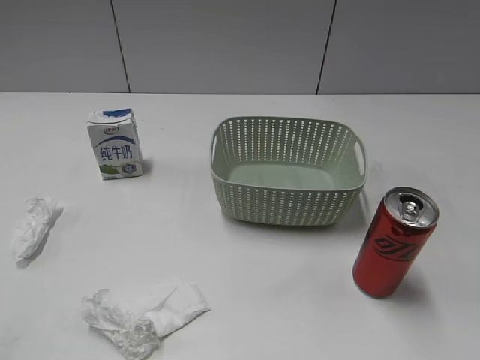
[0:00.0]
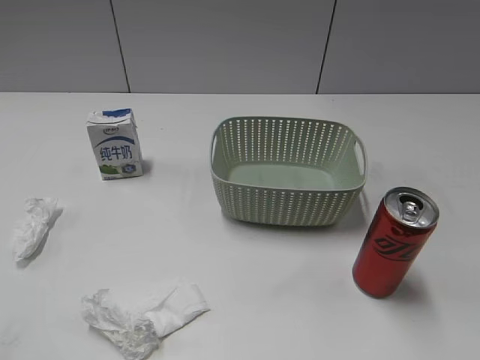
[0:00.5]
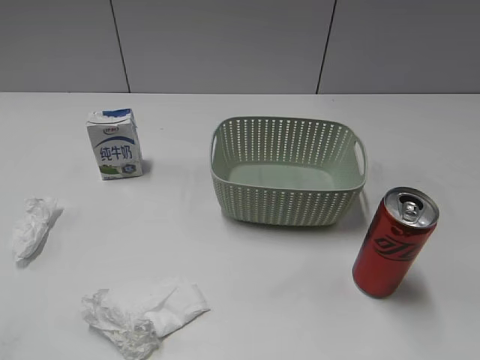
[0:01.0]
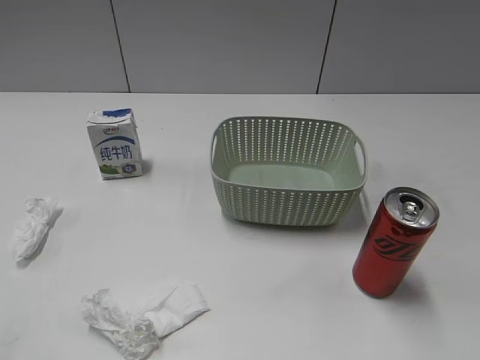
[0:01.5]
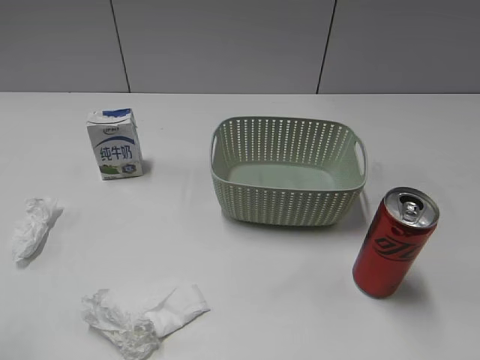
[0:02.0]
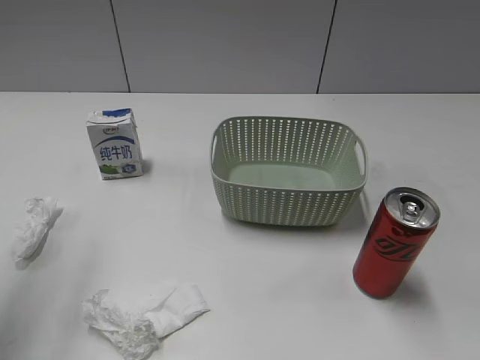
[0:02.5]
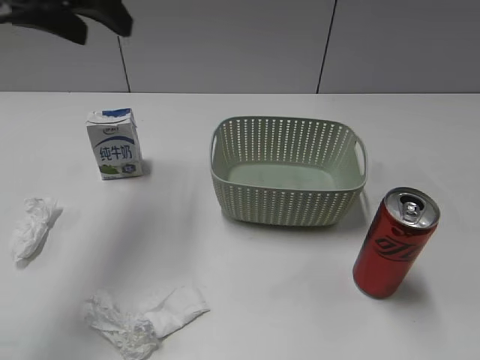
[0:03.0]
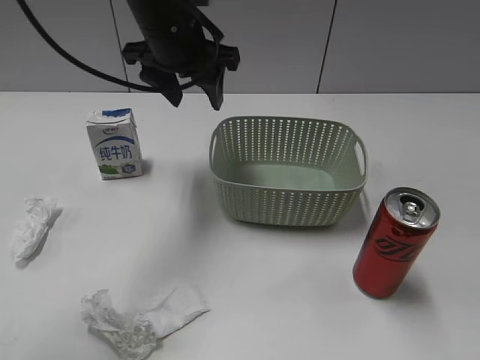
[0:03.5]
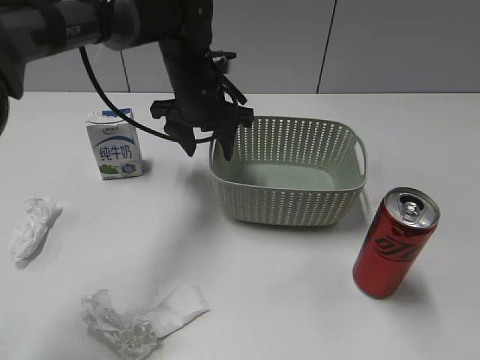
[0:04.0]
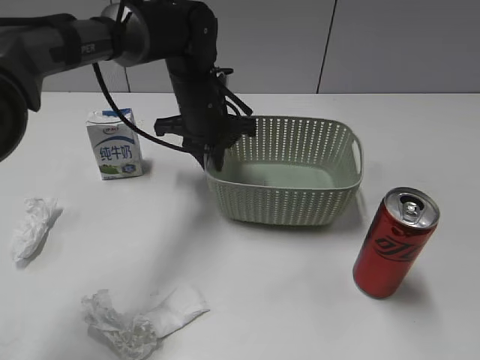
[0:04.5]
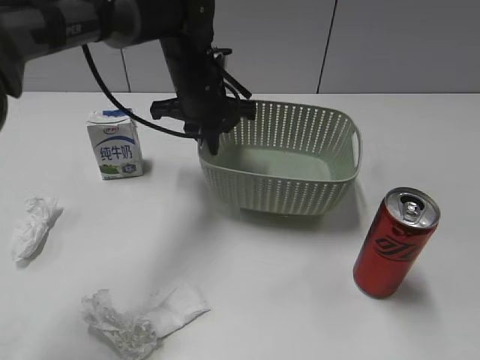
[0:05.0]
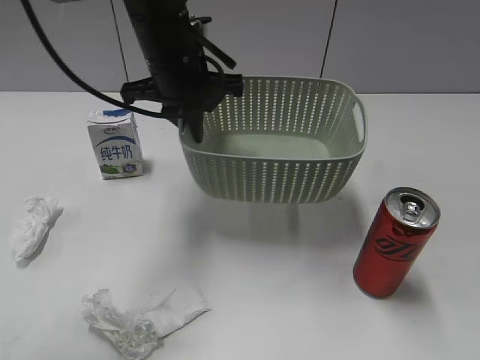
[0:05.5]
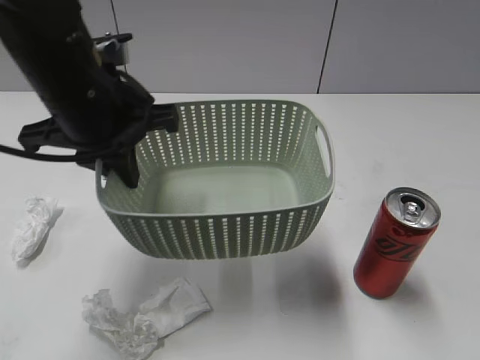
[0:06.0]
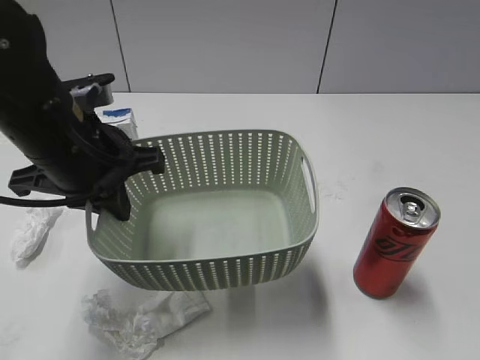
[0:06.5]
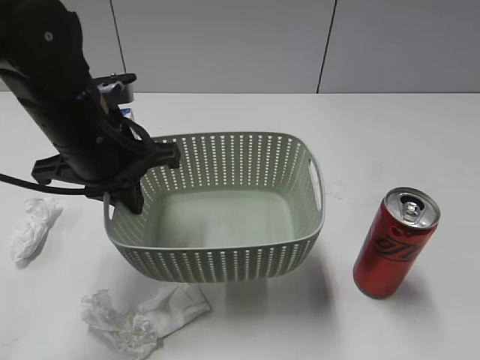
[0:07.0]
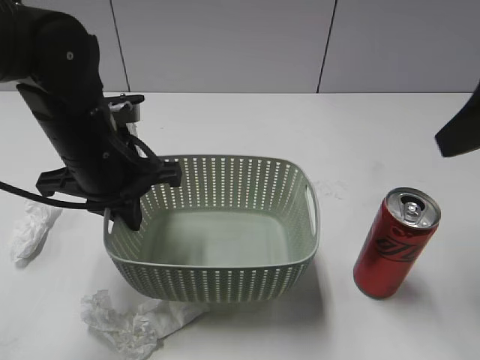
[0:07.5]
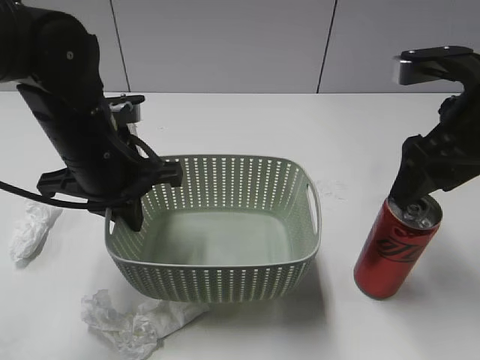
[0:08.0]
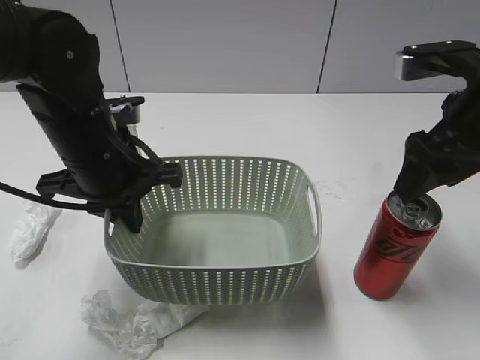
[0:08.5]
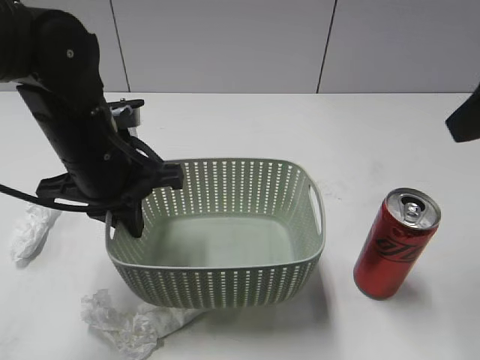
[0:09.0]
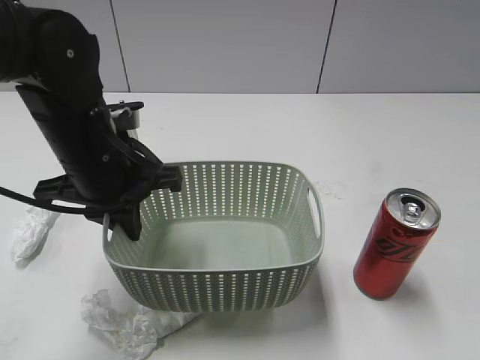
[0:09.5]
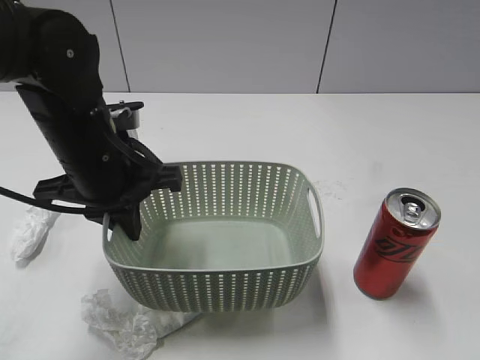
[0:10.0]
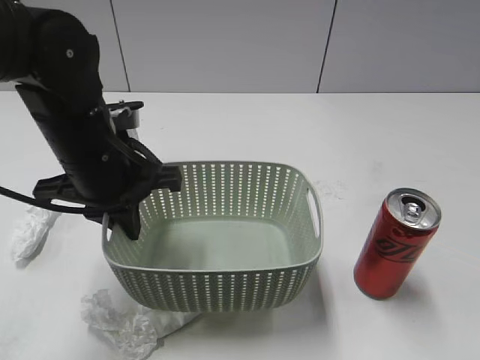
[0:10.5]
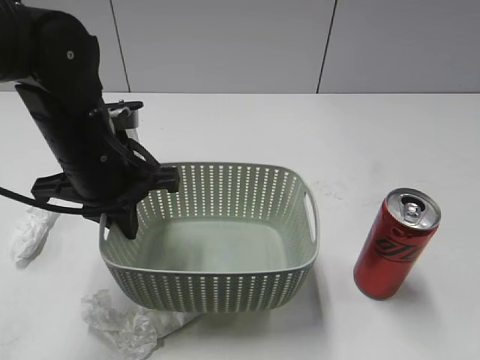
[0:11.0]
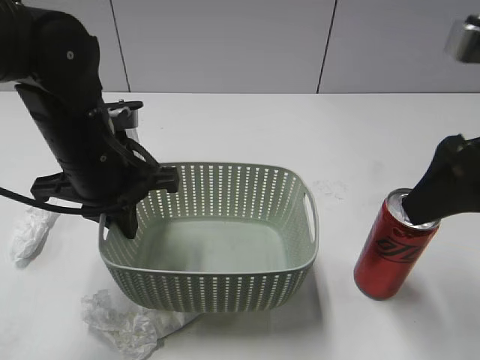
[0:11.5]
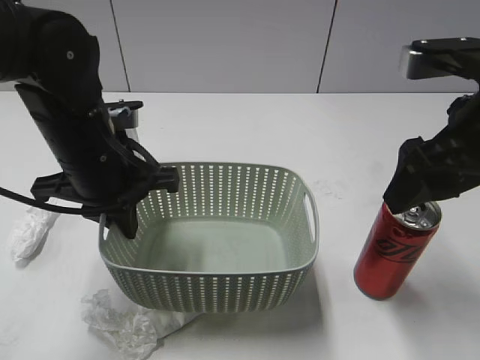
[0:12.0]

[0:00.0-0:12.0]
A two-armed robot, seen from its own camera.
Step, 0:03.0 to 0:04.5: Grasp the basket with left gripper.
Step, 0:05.0 to 0:07.0: Lift the basket with left gripper.
0:02.0 to 0:04.0: The left gripper is displaced forward, to the right and downward by some 50 cm.
0:04.0 to 0:06.0: The left gripper heads backward, to the left and upward, covering roughly 20 cm, and closes.
0:06.0 to 0:08.0: The right gripper heads forward, covering some 25 cm, and closes, then opens again, while the left gripper heads downward, covering some 5 cm.
0:08.0 to 0:10.0: The right gripper travels backward by roughly 25 cm.
0:10.0 to 0:12.0: The right gripper moves forward and to the left, about 25 cm, and opens.

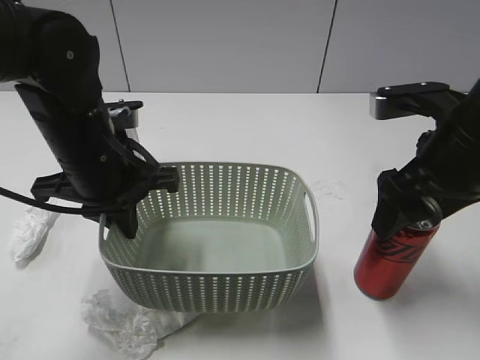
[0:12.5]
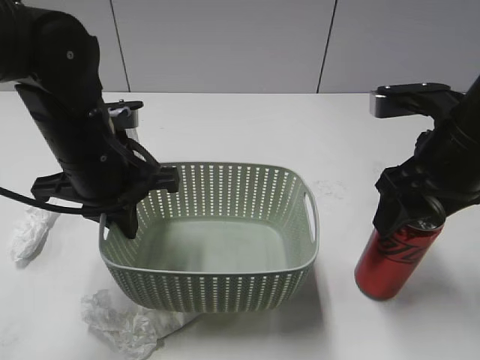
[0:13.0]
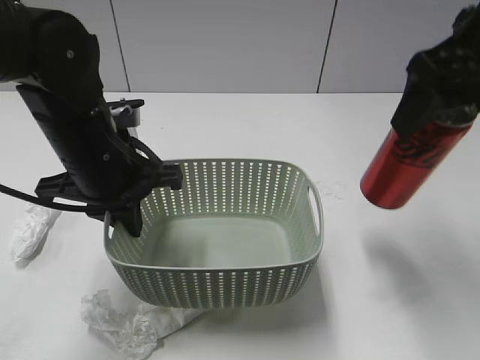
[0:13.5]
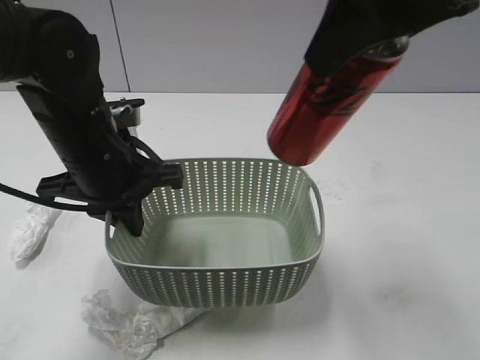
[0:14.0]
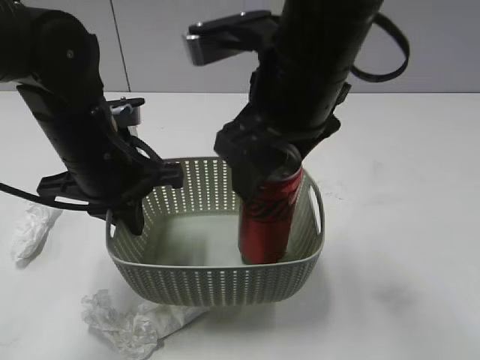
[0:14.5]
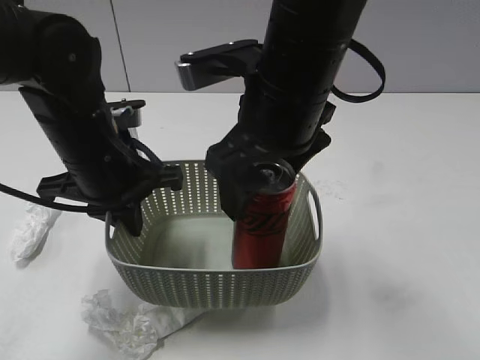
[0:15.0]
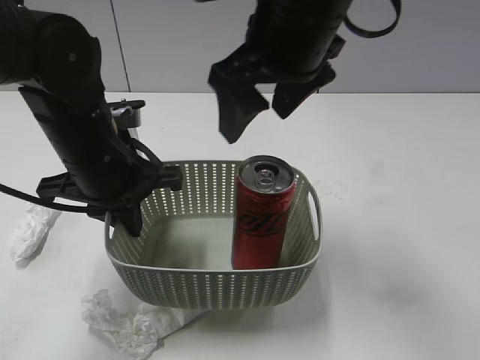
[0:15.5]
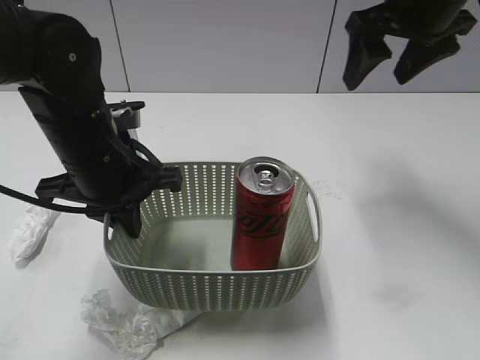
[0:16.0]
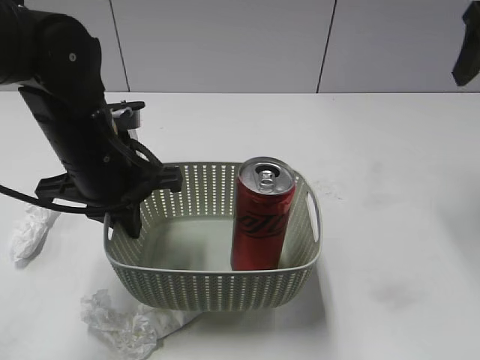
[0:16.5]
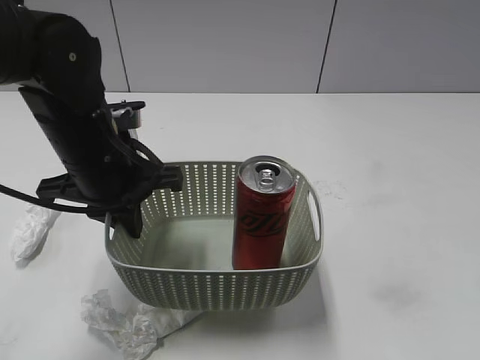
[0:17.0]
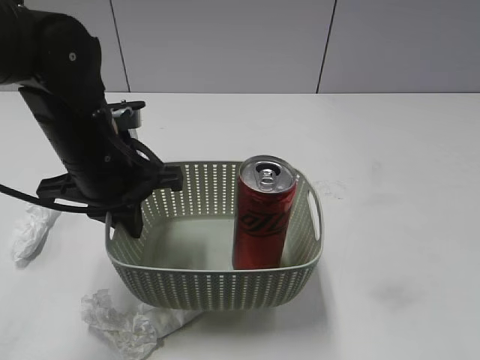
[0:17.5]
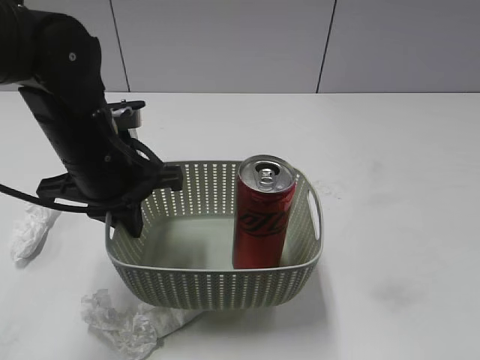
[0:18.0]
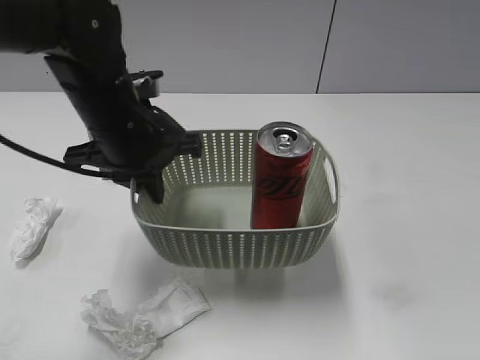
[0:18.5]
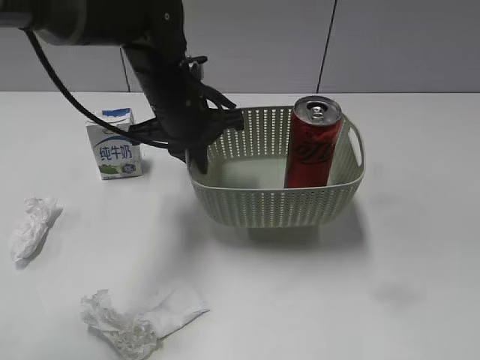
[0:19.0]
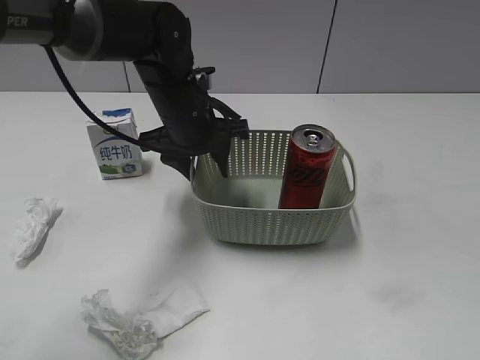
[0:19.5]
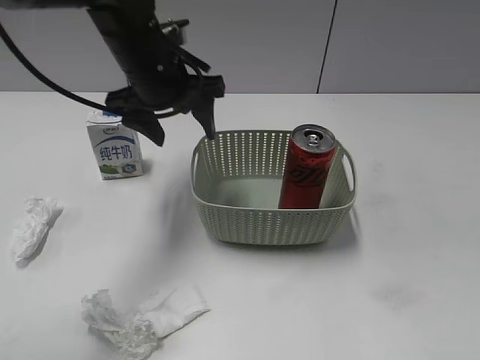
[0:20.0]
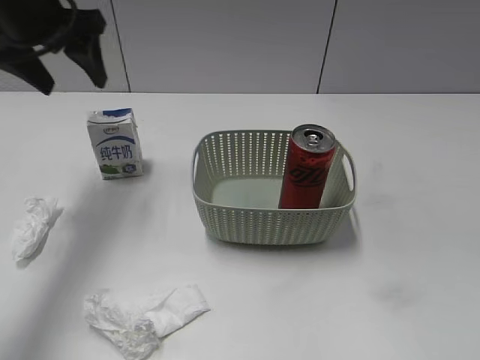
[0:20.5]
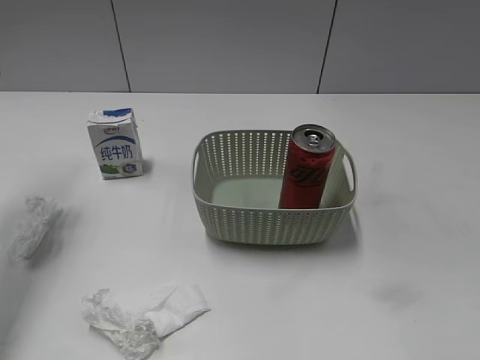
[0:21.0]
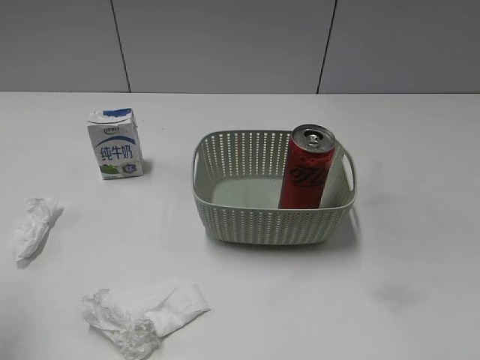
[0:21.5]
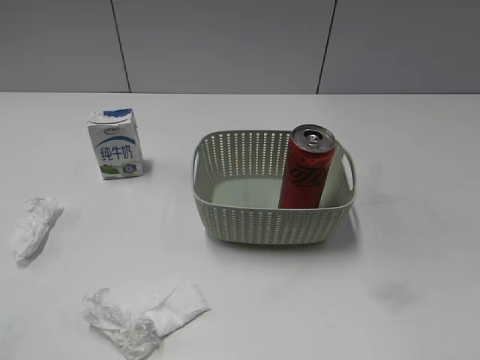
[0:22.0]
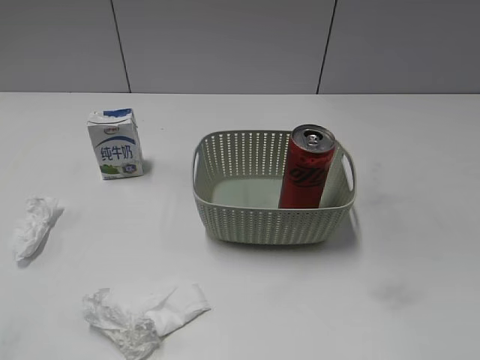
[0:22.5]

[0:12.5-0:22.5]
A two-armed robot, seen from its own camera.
Step, 0:13.0 to 0:15.0: Place the cola can in the basket with right gripper.
Step, 0:15.5 to 0:19.0: Place the basket on the table with left gripper.
0:12.5 to 0:14.5: The right gripper is displaced to the left and upward by roughly 15 cm, and closes up.
0:14.5 to 0:16.5: The right gripper travels to the right by approximately 25 cm, and opens.
0:16.5 to 0:18.5: The right gripper shifts roughly 35 cm backward.
0:18.5 to 0:20.5: The left gripper heads to the left, upward and forward, covering some 15 cm, and opens.
0:20.5 to 0:22.5: The left gripper travels backward by some 40 cm.

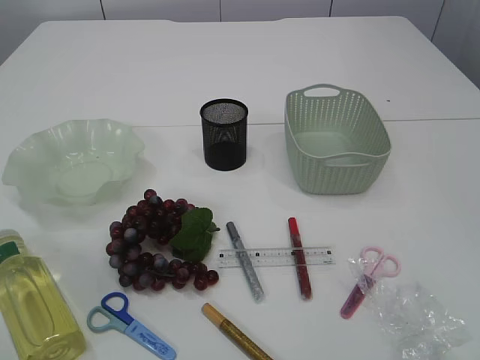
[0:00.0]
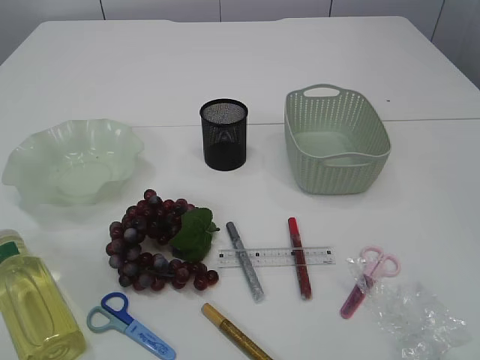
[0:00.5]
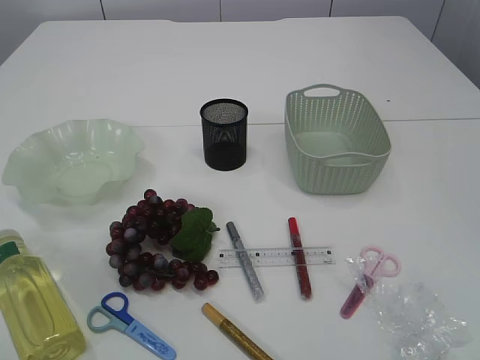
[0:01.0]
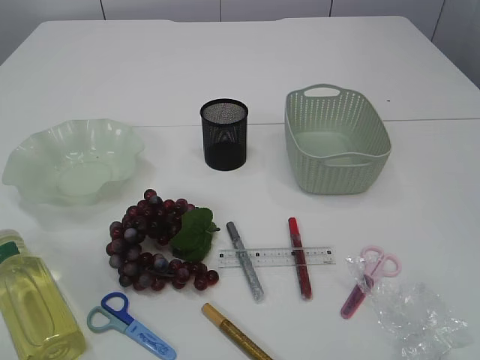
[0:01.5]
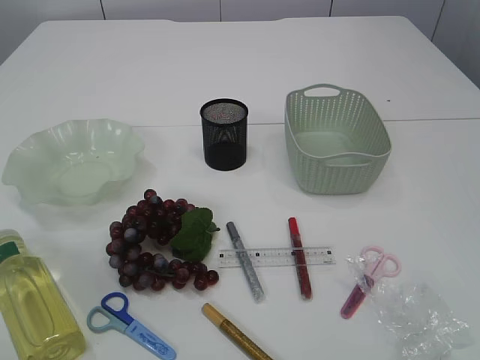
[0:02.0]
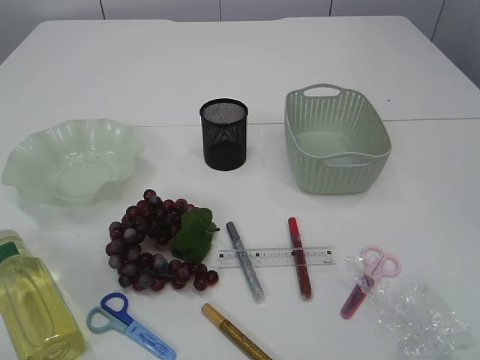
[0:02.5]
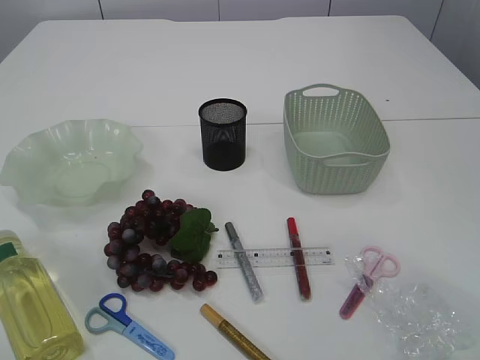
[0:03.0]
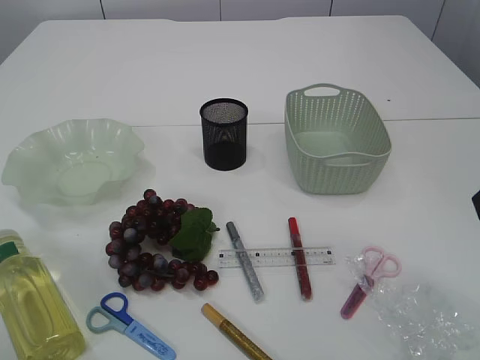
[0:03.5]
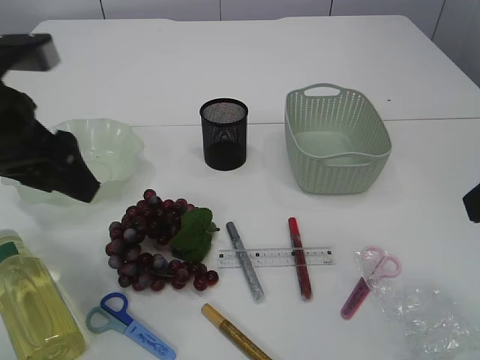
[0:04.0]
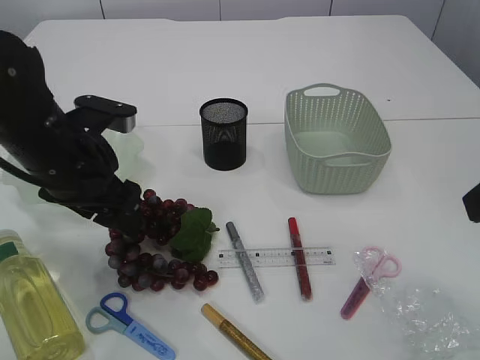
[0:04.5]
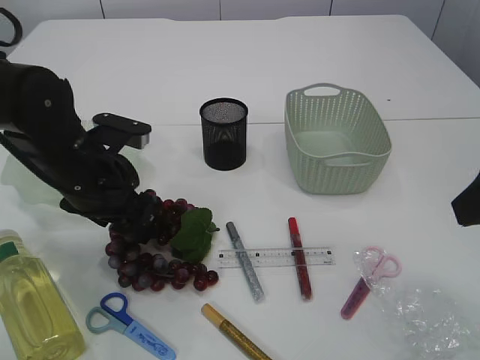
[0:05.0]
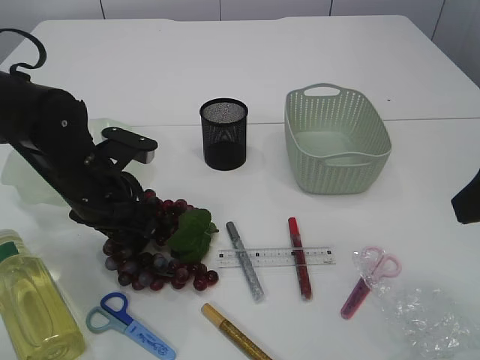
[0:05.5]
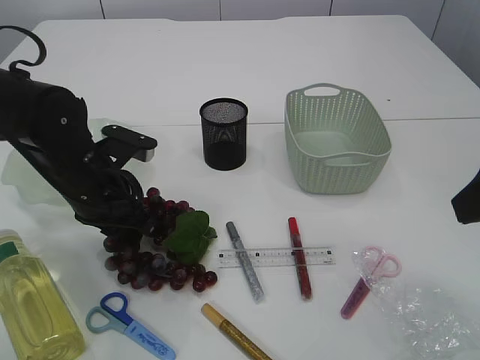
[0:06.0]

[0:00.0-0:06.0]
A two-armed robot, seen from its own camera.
0:02.0 to 0:04.0: Both grippers travel together forward, about 25 cm.
0:04.0 to 0:06.0: The left gripper travels downward and forward by about 15 cm, and closes up.
